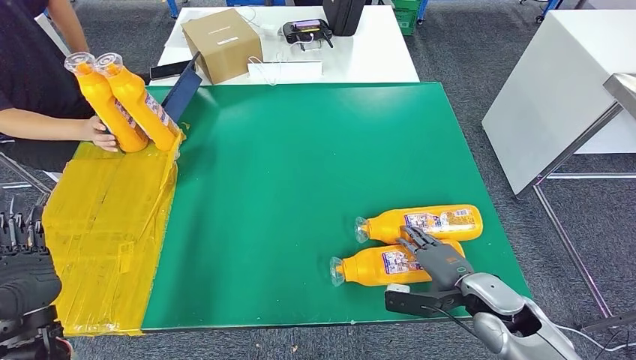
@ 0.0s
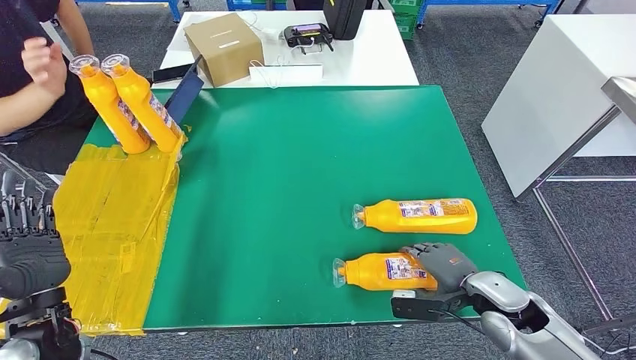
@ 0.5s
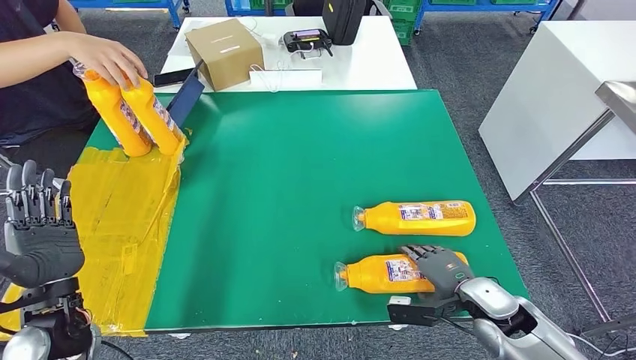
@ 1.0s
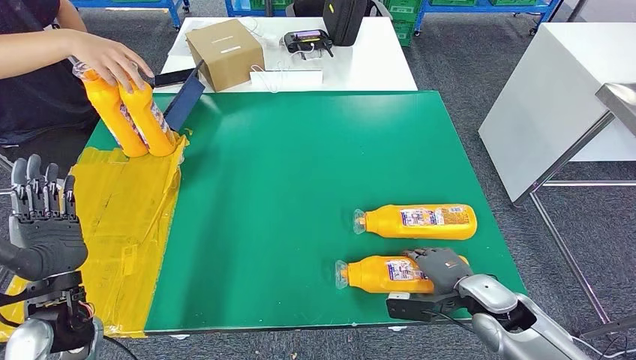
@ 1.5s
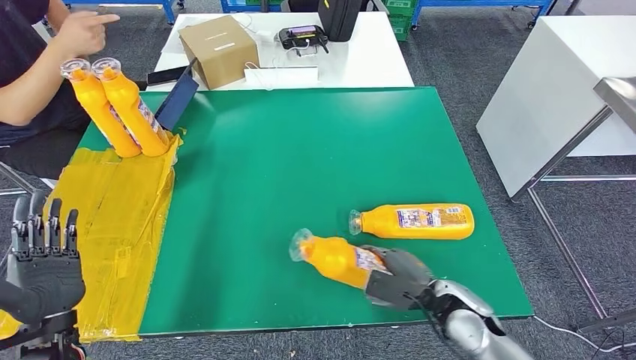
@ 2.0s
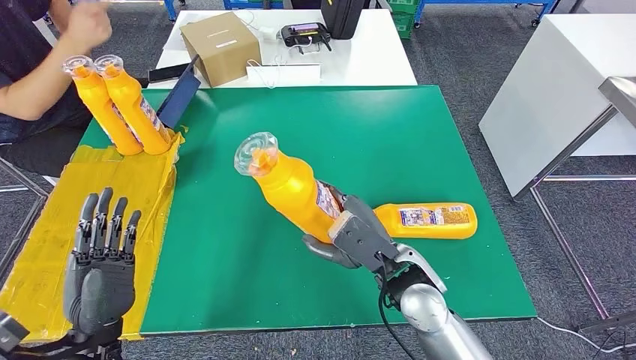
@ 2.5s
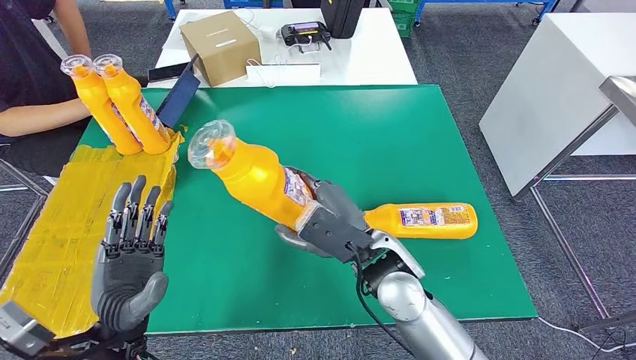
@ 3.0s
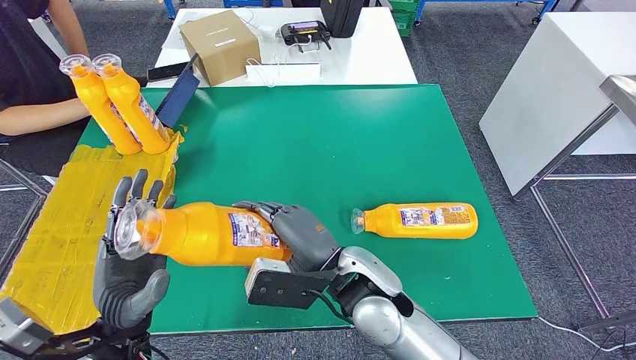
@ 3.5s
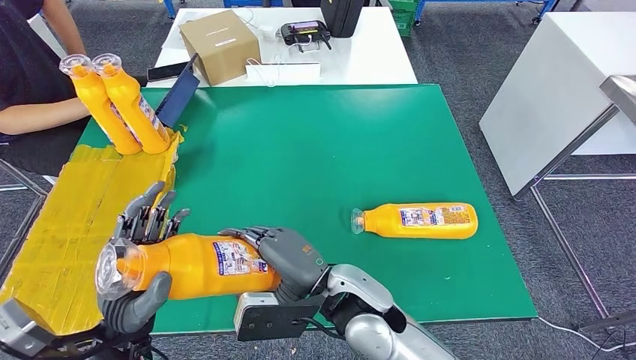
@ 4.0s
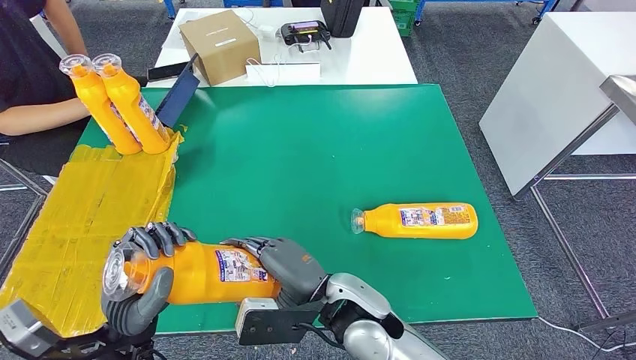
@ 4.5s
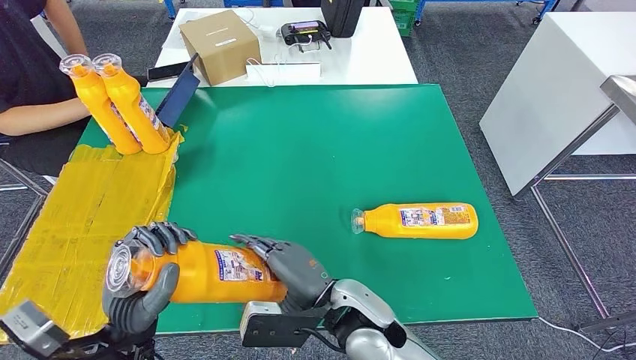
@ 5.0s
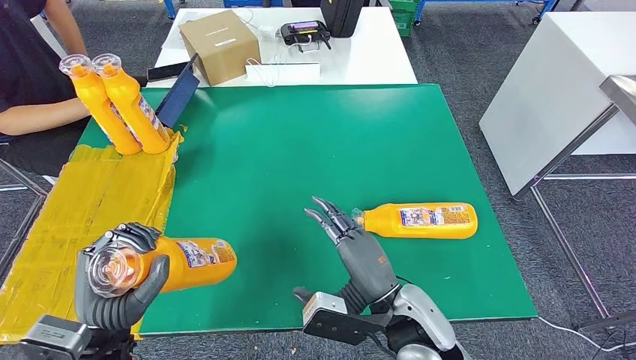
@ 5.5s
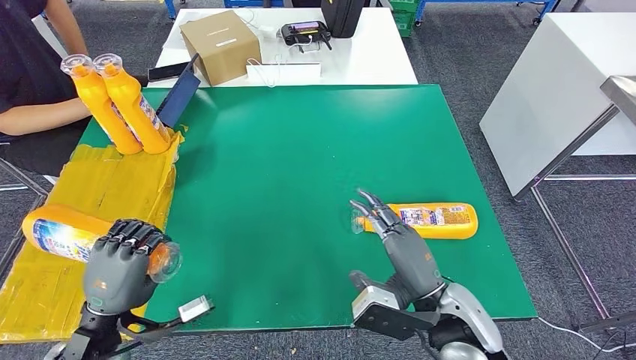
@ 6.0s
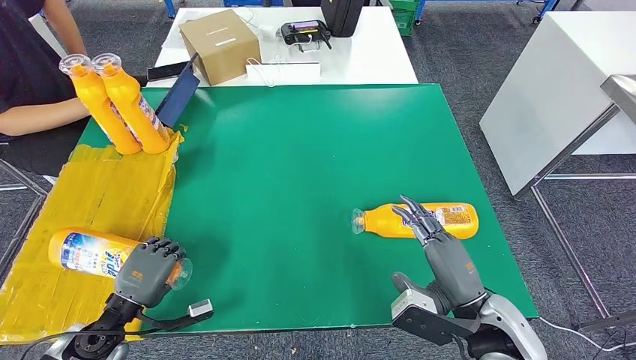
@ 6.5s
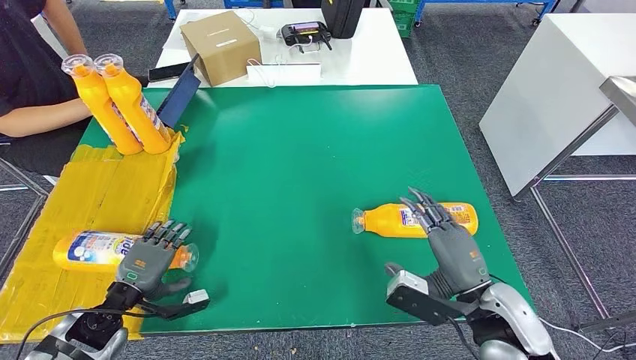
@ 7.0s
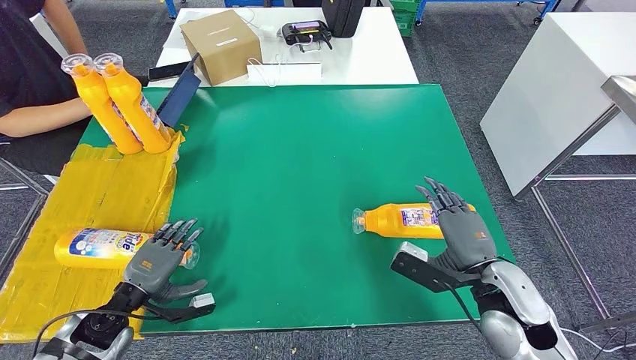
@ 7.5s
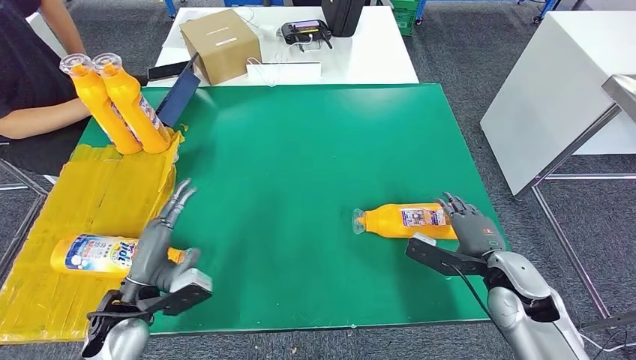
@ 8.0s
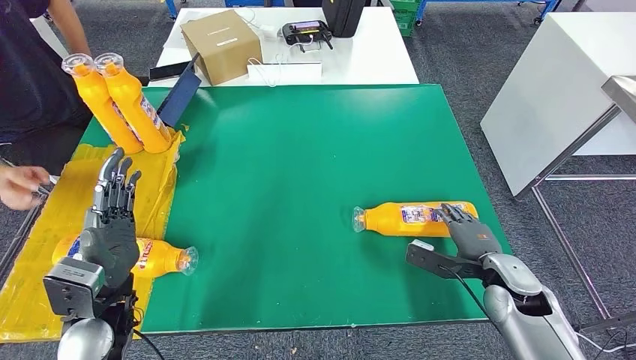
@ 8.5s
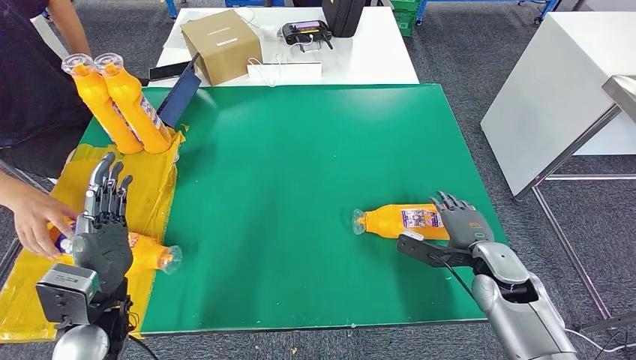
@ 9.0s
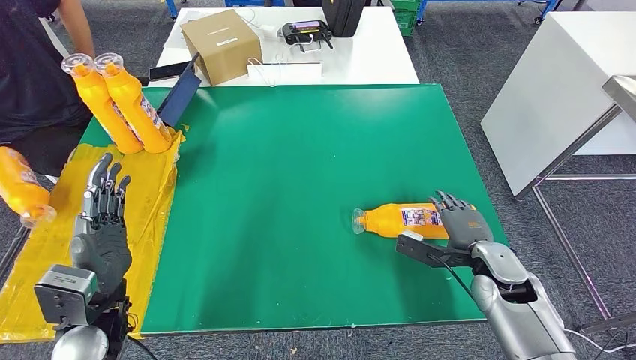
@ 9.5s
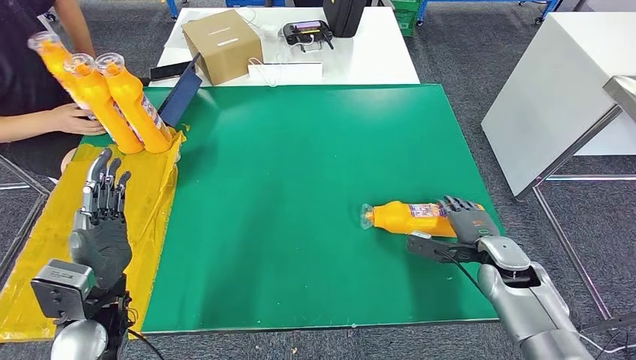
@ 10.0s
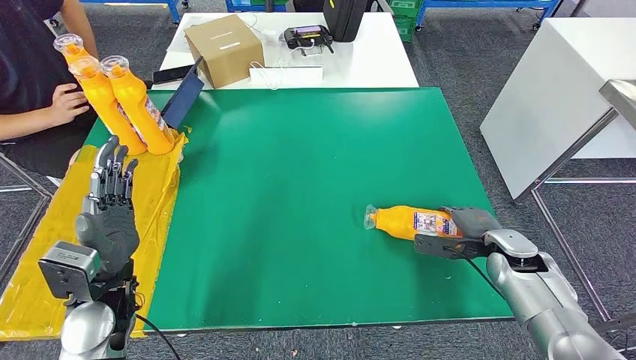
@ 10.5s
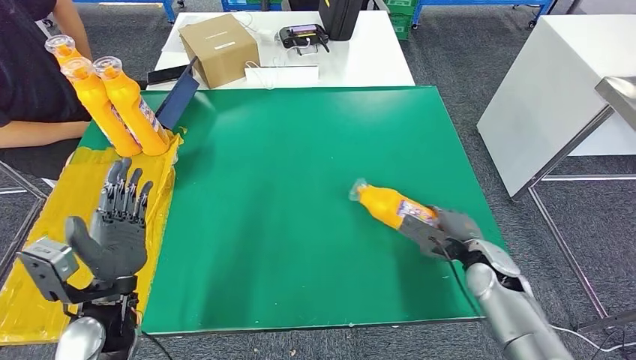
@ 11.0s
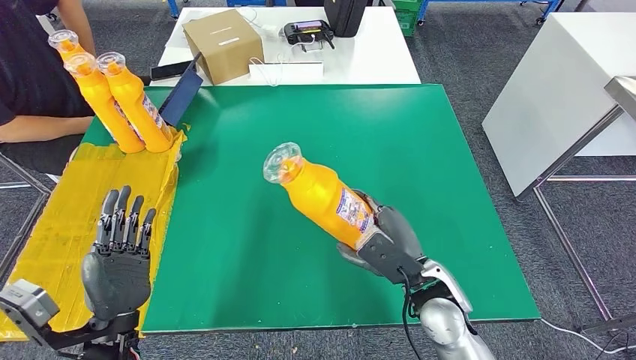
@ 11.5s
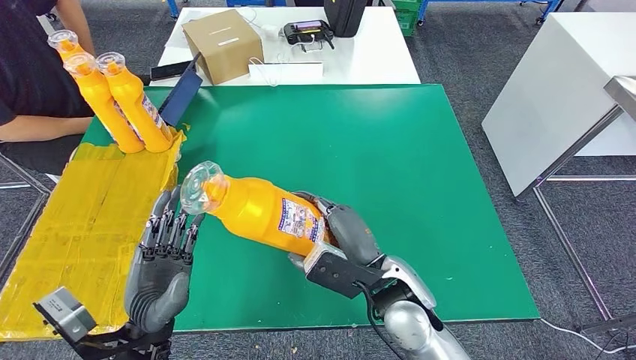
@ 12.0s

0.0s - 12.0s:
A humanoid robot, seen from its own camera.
Step, 0.0s - 2.0s: Pick up the bottle from the table.
Step, 3.0s - 8.0s: Flip the bottle to face forward.
Step, 8.5s - 11.5s: Pick up the bottle from the table.
4.0s - 6.0s: The right hand shifts some 15 cm to the right. Meanwhile the left hand travels to the left by approximately 5 cm.
6.0s - 8.0s: The right hand moves to the right and forward, some 15 cm, while the left hand reaches approximately 10 cm downward, then returns.
8.0s - 10.0s: The right hand heads forward, covering some 5 cm. The left hand travels upward by some 5 cm.

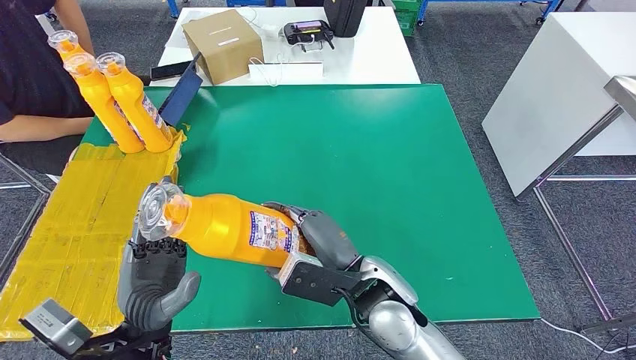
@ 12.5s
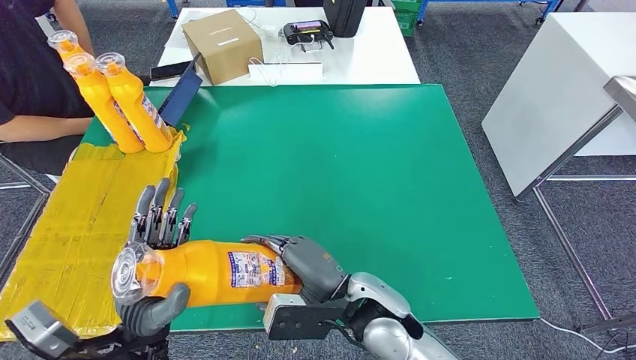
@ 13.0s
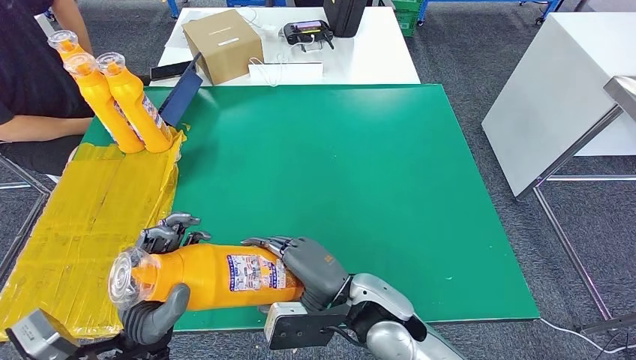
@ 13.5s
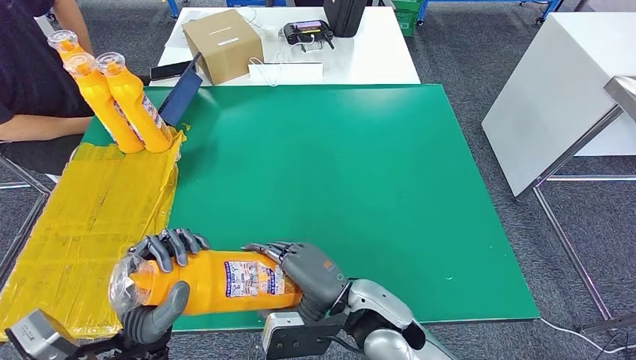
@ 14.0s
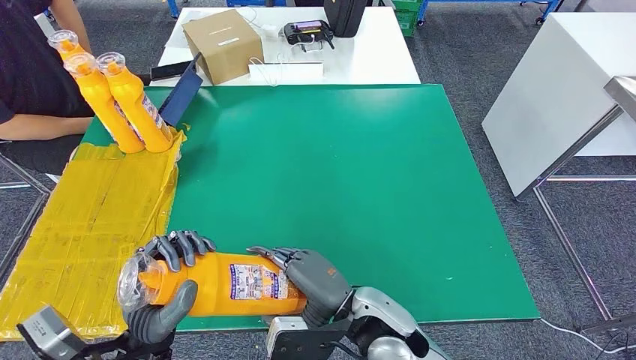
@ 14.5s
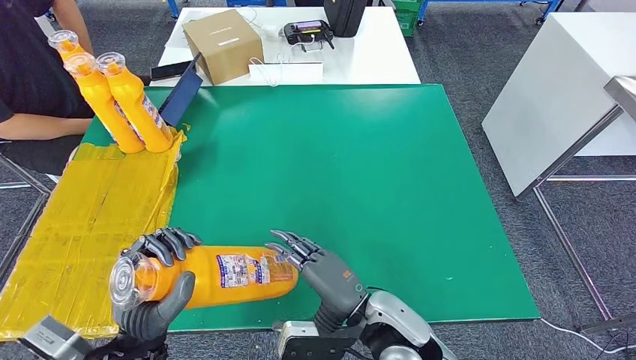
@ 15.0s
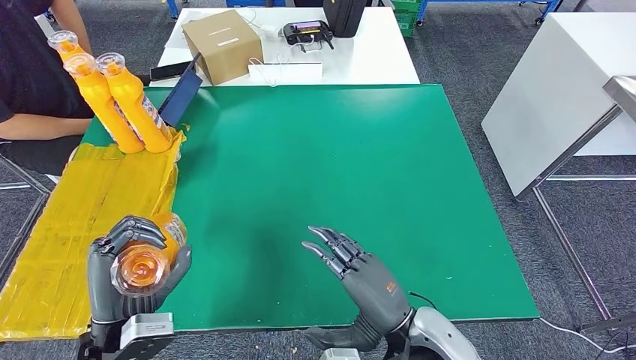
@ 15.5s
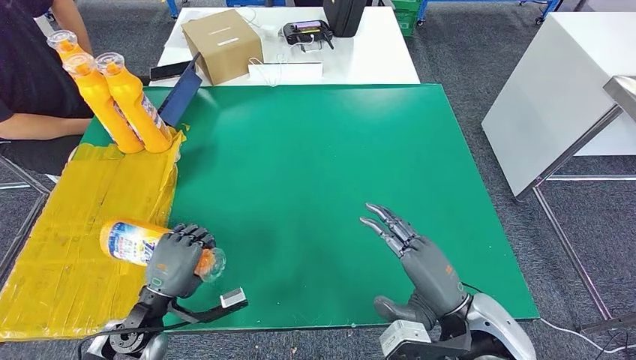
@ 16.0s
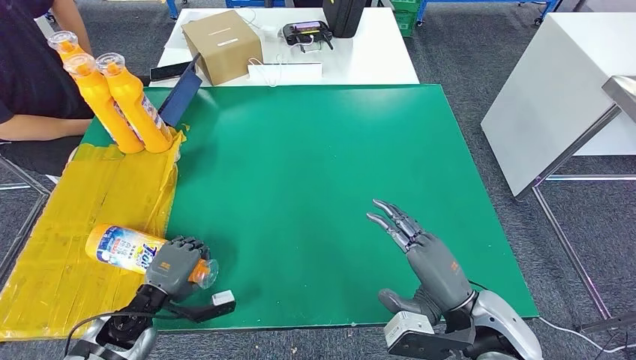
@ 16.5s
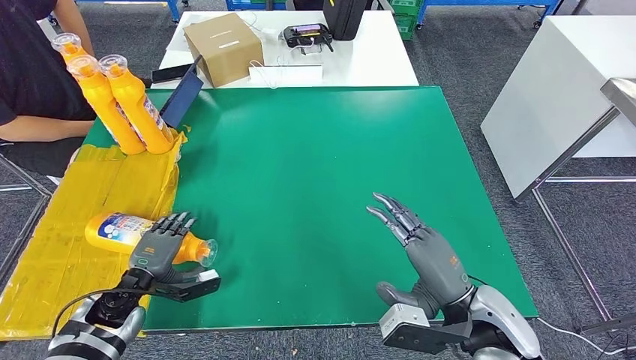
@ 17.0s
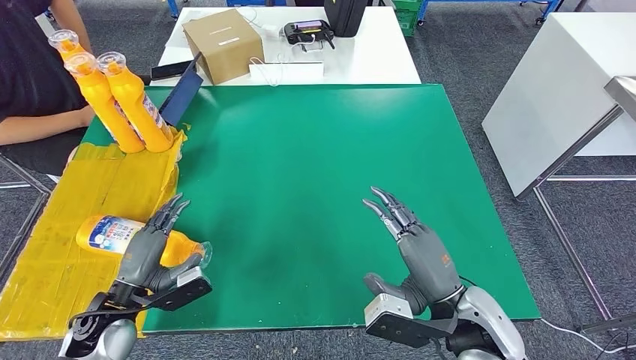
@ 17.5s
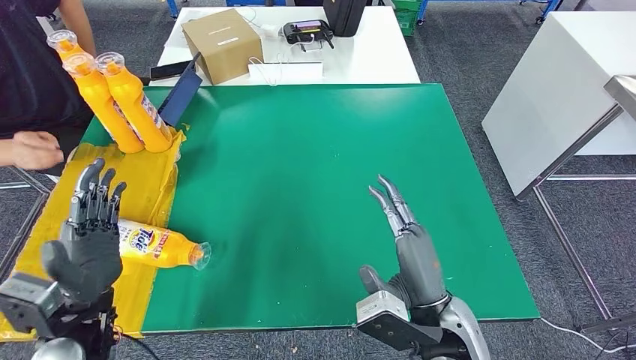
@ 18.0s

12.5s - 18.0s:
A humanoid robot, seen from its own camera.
Step, 12.5s - 18.0s: Flip the bottle to face forward.
12.5s - 14.5s: The hands make only small movements.
14.5s - 16.0s: The left hand goes about 15 cm downward, forward and to the left. The right hand shifts approximately 15 cm to the right.
16.0s - 18.0s: The right hand goes approximately 5 cm to the left. Meanwhile the left hand shifts approximately 10 cm upward.
